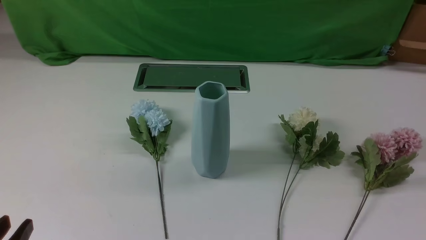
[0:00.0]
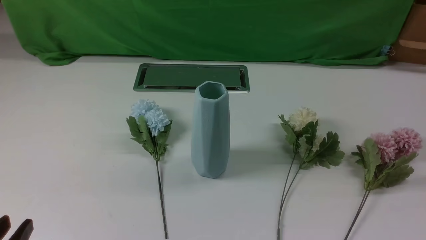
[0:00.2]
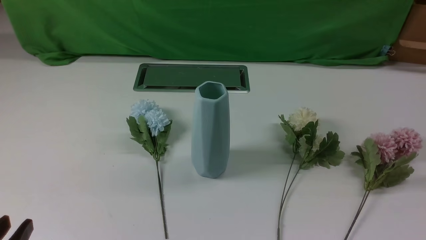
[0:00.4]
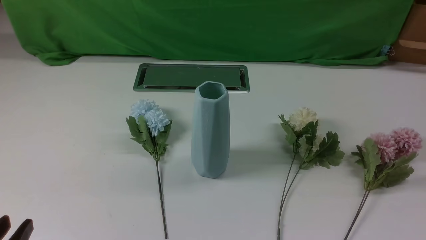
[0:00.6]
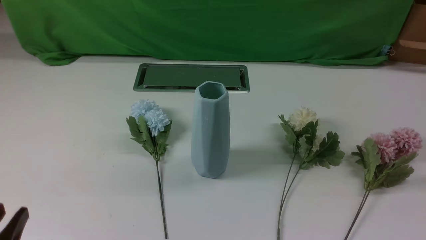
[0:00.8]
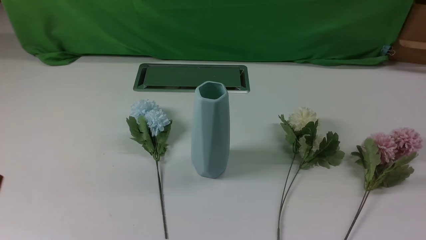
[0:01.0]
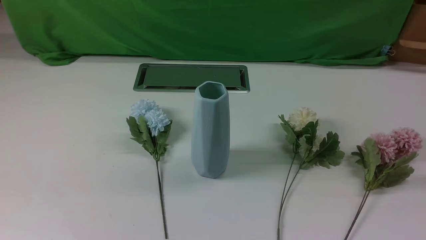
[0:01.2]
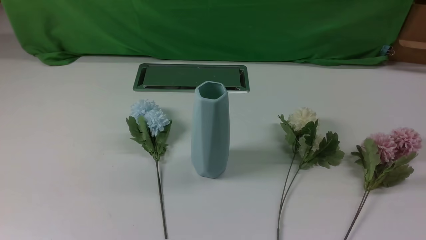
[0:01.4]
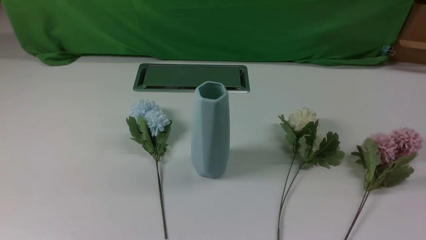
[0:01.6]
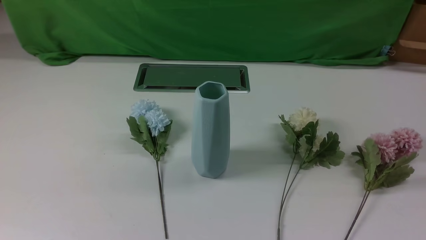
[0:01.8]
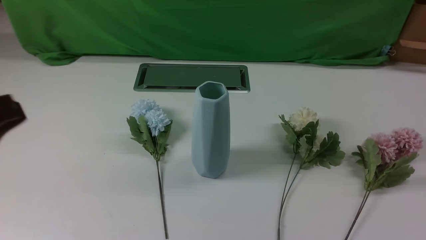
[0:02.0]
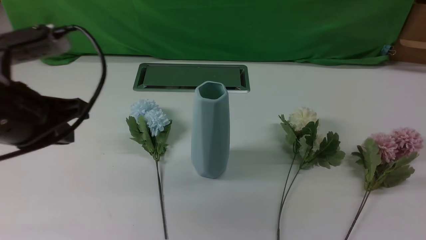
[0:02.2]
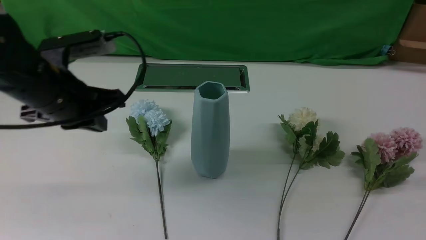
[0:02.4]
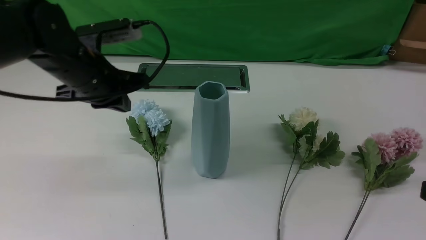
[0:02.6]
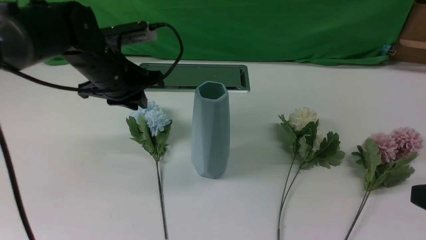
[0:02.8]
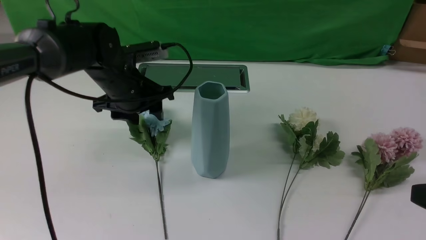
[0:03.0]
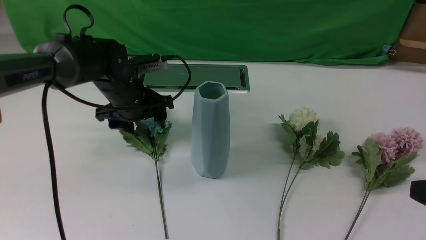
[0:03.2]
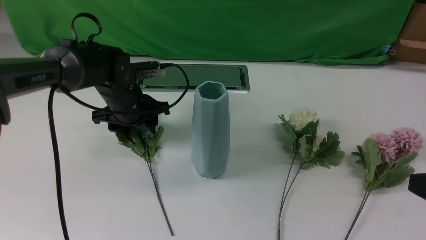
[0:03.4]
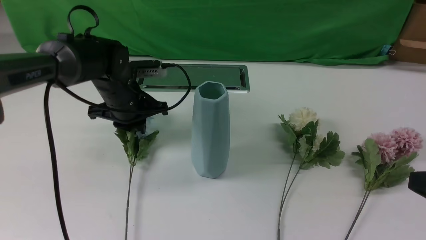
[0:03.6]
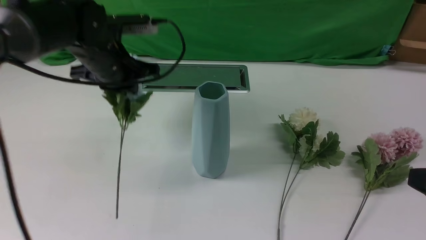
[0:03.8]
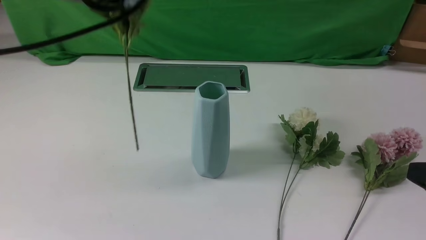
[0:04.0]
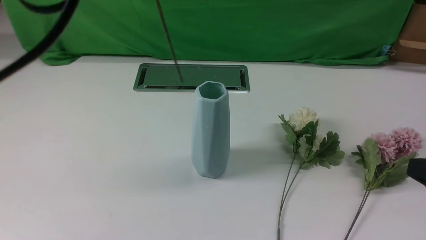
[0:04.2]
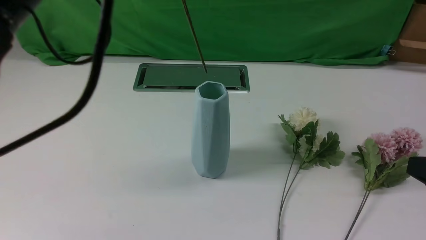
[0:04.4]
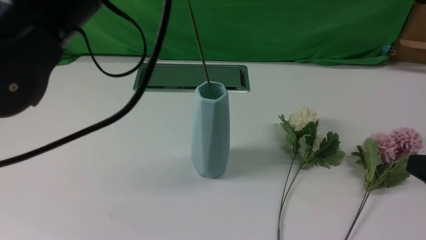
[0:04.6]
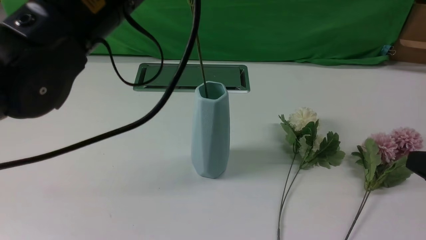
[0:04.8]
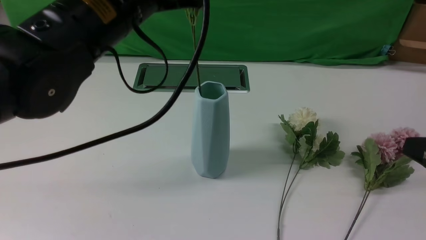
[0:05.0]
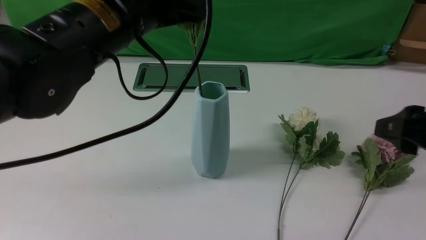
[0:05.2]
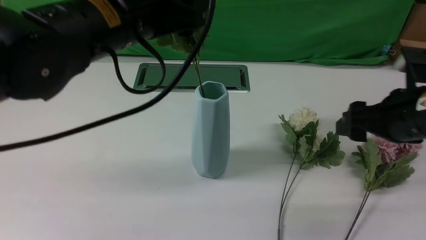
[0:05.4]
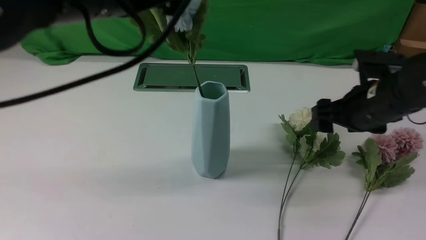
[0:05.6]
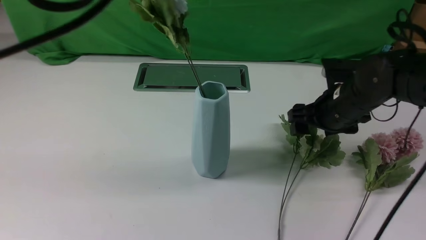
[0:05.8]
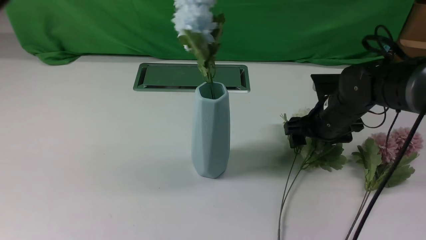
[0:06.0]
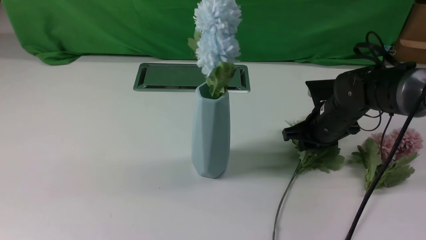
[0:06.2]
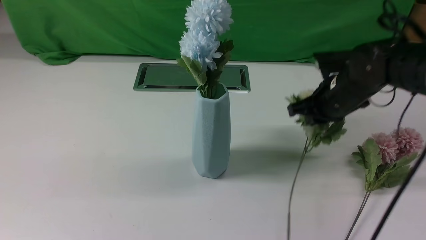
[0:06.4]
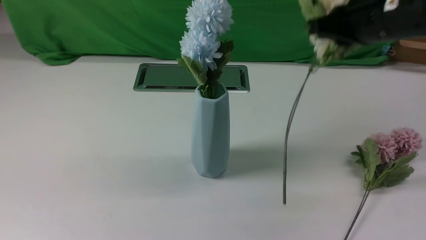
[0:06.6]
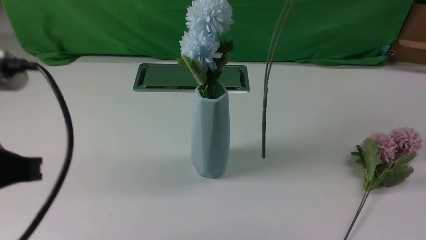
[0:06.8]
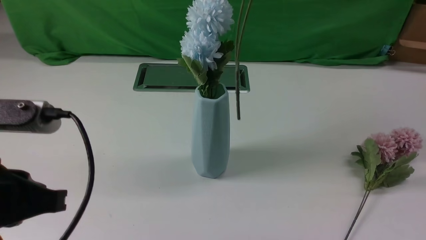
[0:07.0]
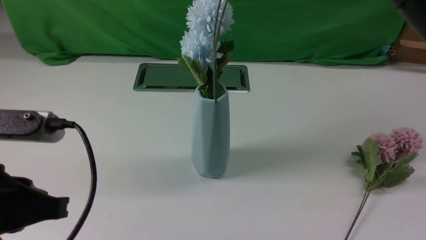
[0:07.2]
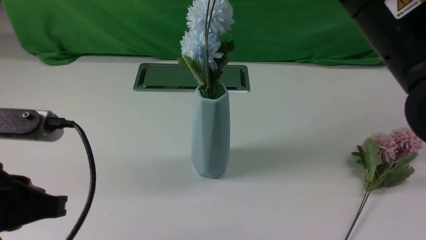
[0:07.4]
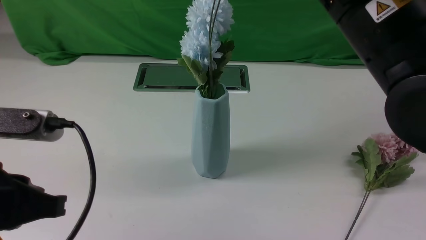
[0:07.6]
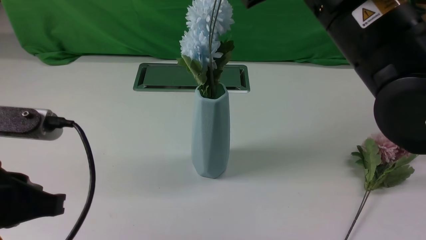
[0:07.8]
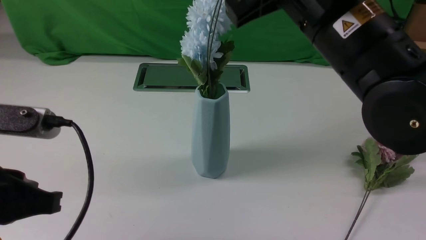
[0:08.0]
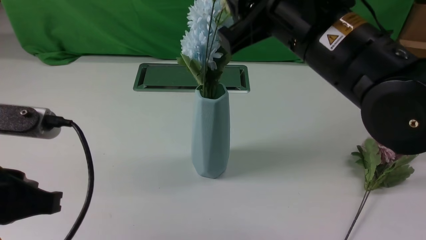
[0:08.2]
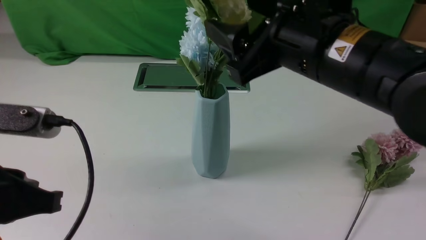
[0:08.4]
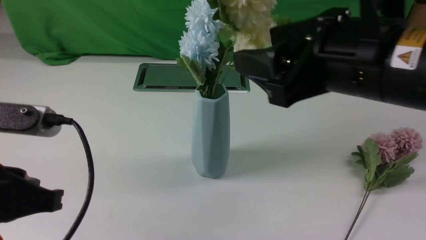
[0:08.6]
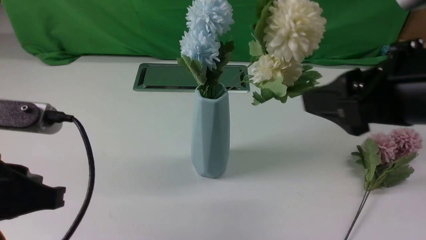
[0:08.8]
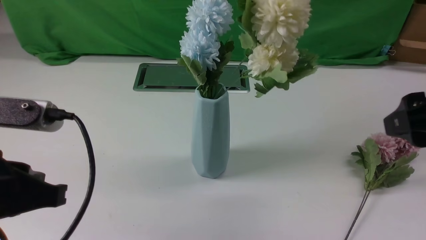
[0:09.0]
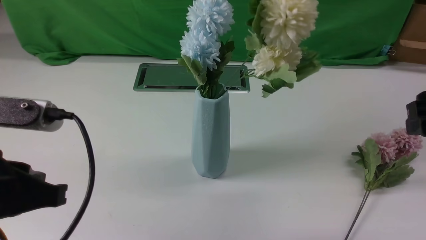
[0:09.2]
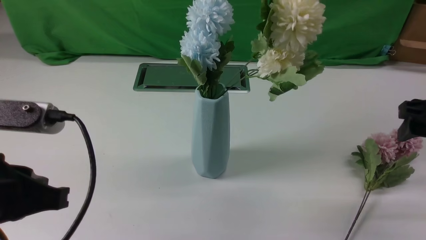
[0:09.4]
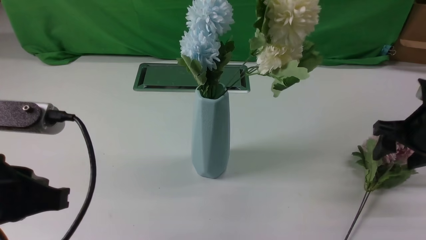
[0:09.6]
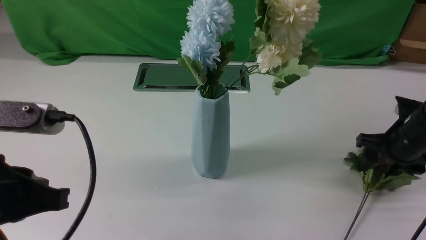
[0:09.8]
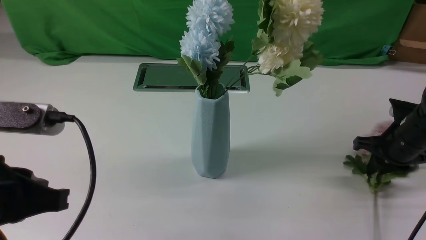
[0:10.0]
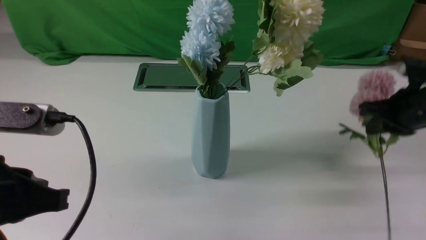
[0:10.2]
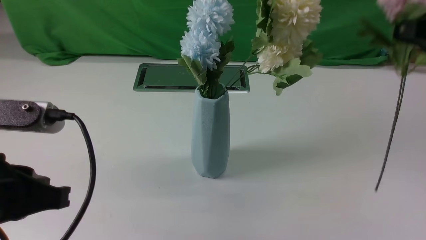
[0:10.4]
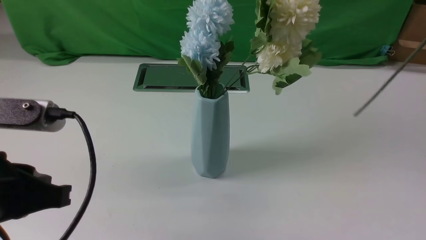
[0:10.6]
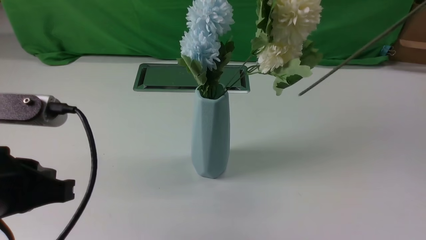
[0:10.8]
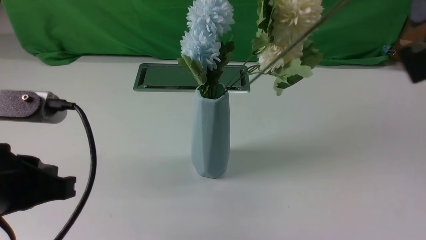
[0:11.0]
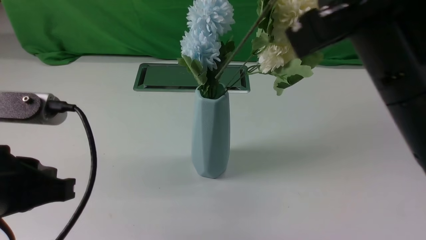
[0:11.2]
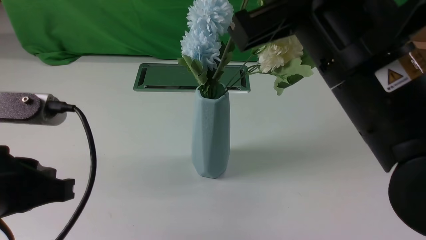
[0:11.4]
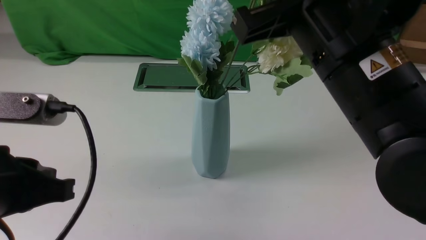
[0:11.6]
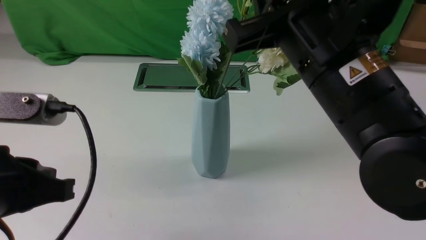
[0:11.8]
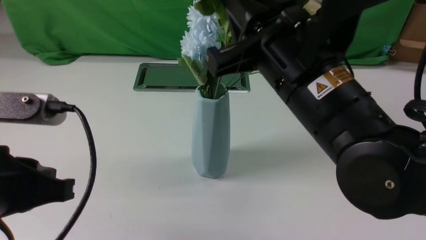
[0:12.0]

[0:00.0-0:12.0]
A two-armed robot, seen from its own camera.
Task of the whole recording: insert the flowers into the vase on the white table.
Step, 0:00.0 to 0:03.4: use the left arm to grab a bunch of fresh flowers.
Step, 0:03.6 to 0:05.8: use the left arm to insert the flowers into the vase.
Step, 0:06.0 to 0:06.2: use the right arm to grab a bunch of fresh flowers.
Step, 0:06.4 to 0:08.8: use the right arm to insert the flowers into the vase.
Step, 0:09.0 to 0:09.8: use the right arm to grab a bunch of fresh flowers.
0:01.6 to 0:03.0: The left gripper goes roughly 35 cm forward, and opens up; the right gripper is displaced upward and forward by approximately 10 cm.
0:03.0 to 0:04.4: The left gripper moves upward and backward, approximately 30 cm, and closes.
0:04.4 to 0:06.0: The right gripper heads forward and downward, covering about 30 cm. Meanwhile the left gripper is displaced backward by approximately 5 cm, and opens its fingers.
0:06.0 to 0:07.6: The left gripper goes approximately 20 cm downward, and closes up; the right gripper goes about 30 cm upward and backward, and closes its fingers.
0:07.6 to 0:09.0: The right gripper shifts some 15 cm to the right and downward, and opens up.
0:09.0 to 0:10.4: The right gripper goes downward and returns, some 20 cm each way, and closes.
0:10.4 to 0:12.0: The right gripper goes approximately 20 cm to the left.

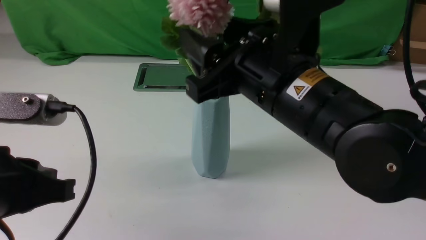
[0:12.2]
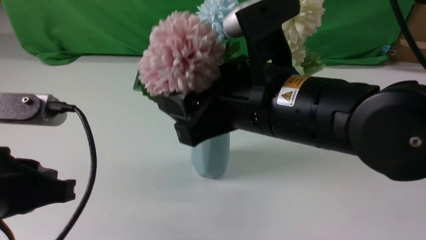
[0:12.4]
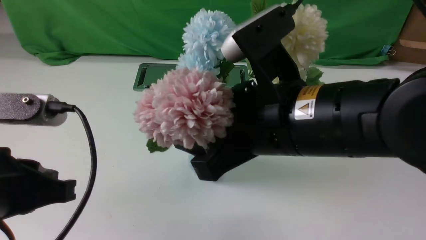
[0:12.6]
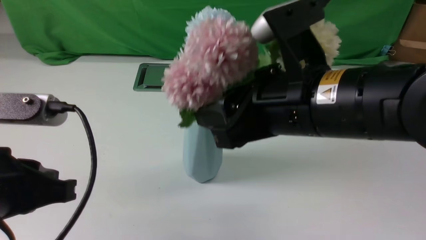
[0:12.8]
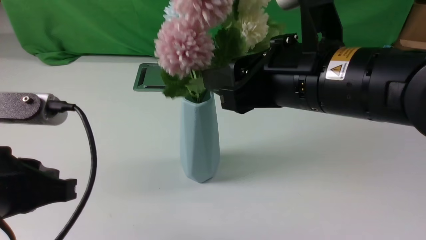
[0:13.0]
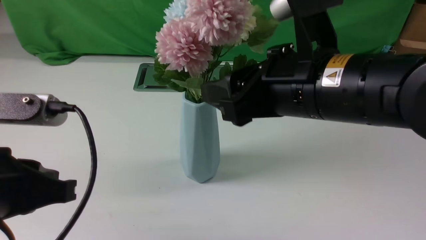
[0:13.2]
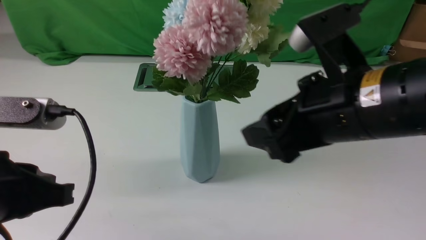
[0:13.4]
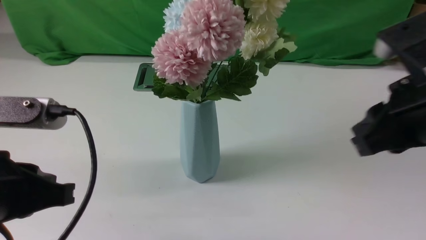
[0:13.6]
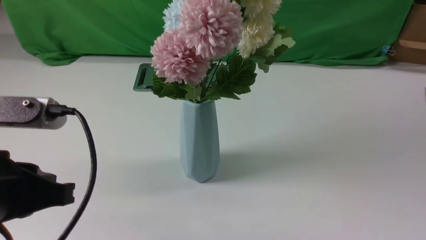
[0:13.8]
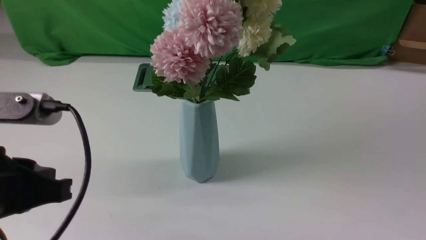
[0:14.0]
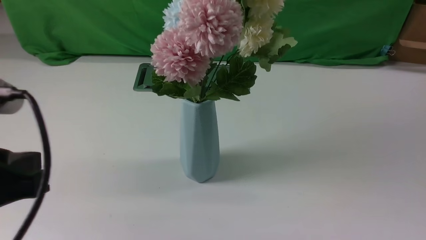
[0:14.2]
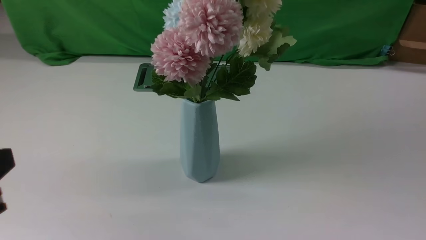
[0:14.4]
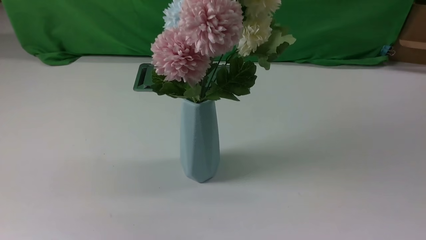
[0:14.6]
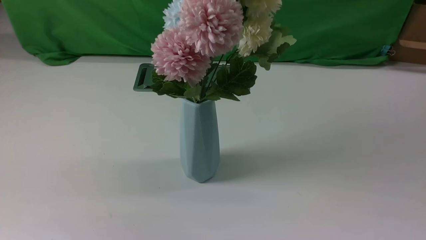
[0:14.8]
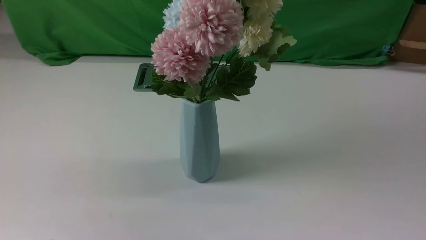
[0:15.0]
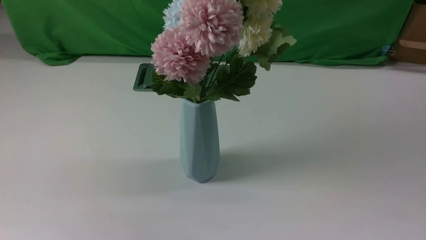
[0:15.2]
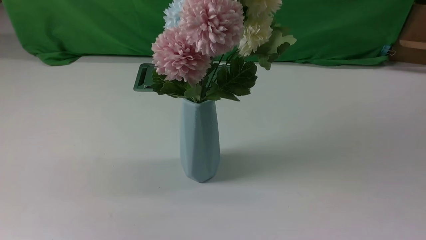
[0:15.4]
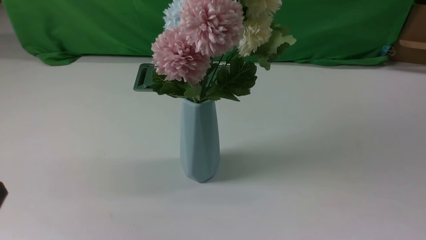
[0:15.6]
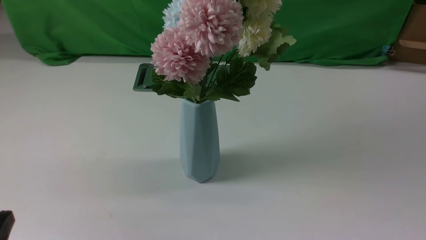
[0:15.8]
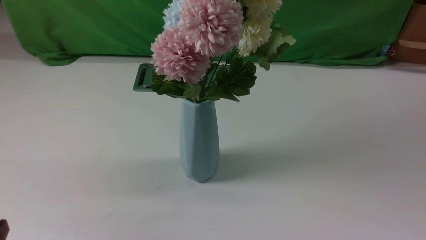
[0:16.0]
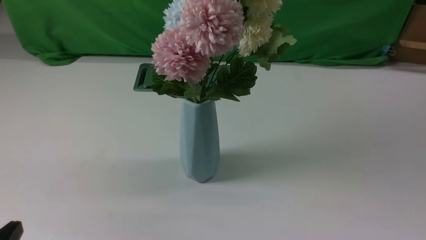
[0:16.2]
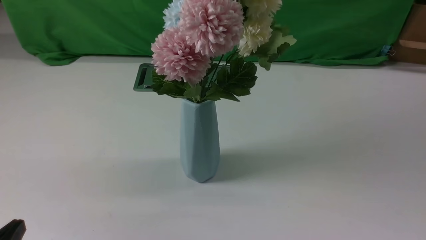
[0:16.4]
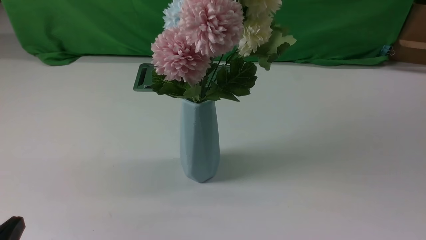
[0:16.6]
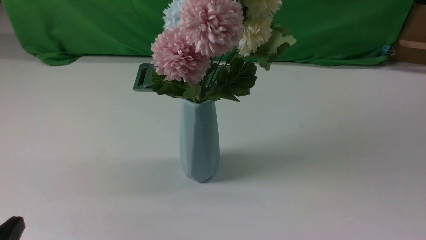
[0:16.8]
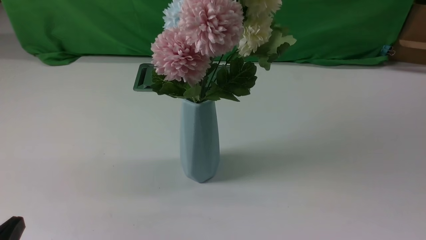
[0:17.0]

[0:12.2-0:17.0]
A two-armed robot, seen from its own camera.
Task of the whole recording: insert the flowers into the vase on the white table.
0:12.2 to 0:13.8: The right gripper shifts roughly 20 cm to the right and backward, and closes.
0:13.8 to 0:15.4: The left gripper is displaced backward by about 10 cm; the right gripper moves backward and downward, about 10 cm.
